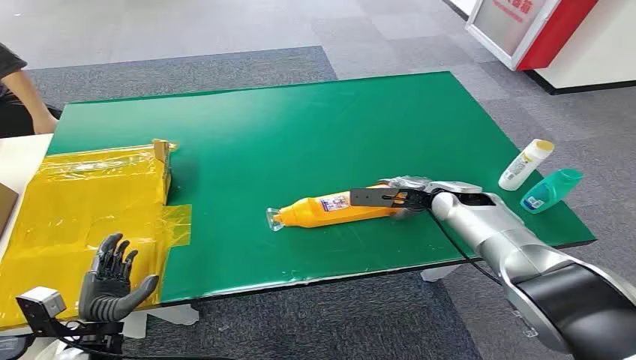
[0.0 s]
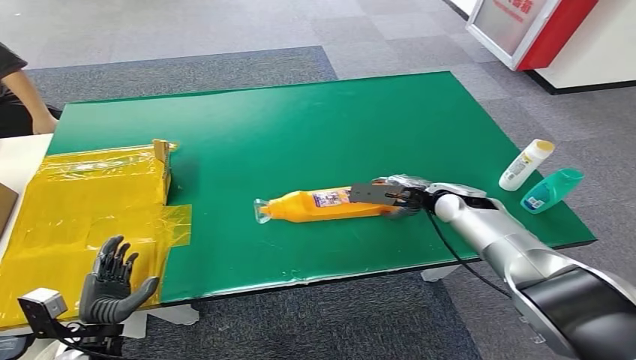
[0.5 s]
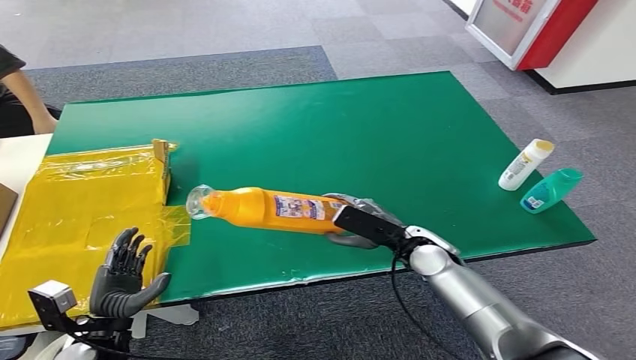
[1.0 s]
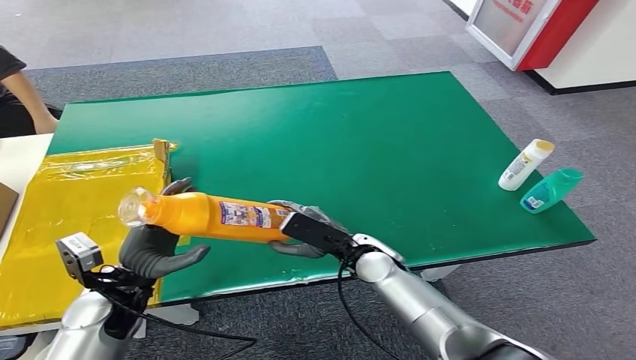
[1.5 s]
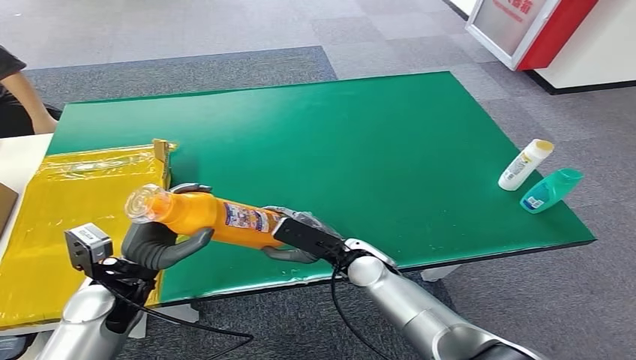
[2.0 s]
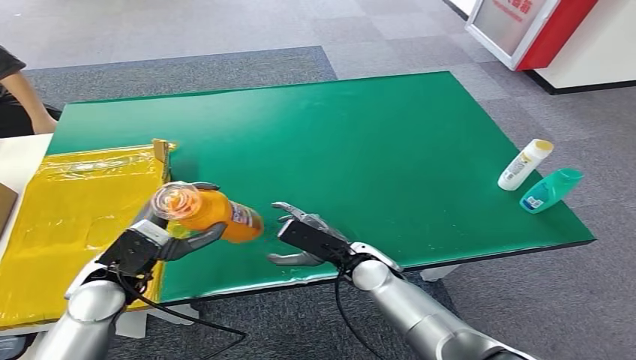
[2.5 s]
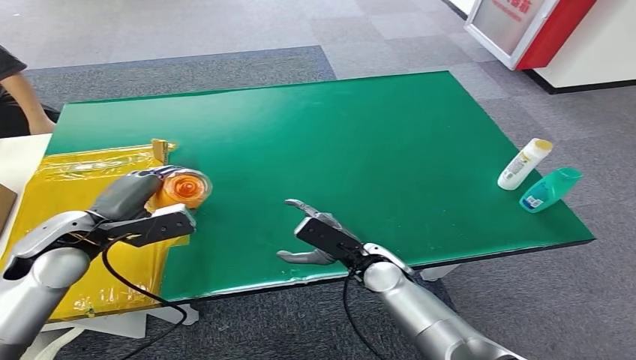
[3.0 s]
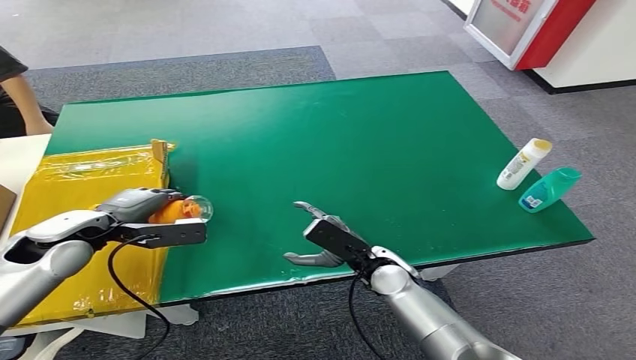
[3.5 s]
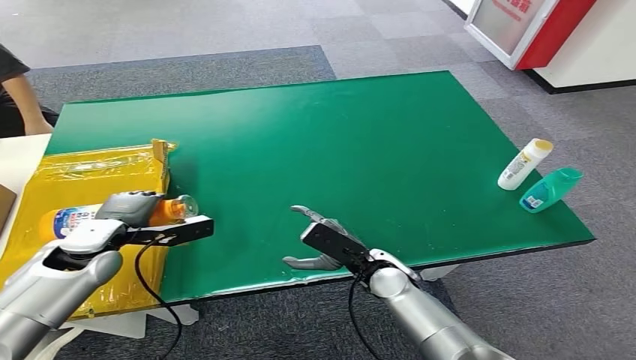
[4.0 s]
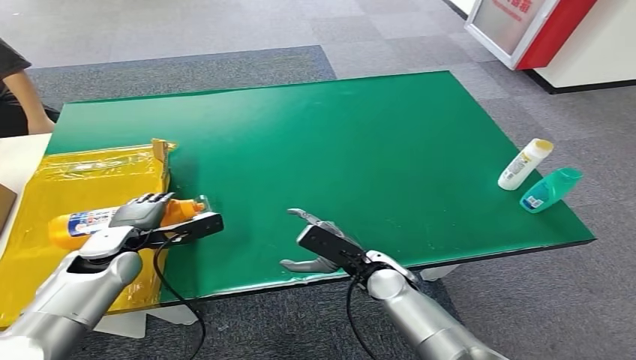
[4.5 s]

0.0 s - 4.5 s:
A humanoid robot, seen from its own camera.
Step, 0.0 s - 1.0 s: Pick up the bottle from the table.
Step, 1.5 s - 4.5 s: Turn the bottle to the front side.
2.0 s - 4.5 s: The left hand goes roughly 10 cm forward, and travels upward and back again, some 10 cm each way.

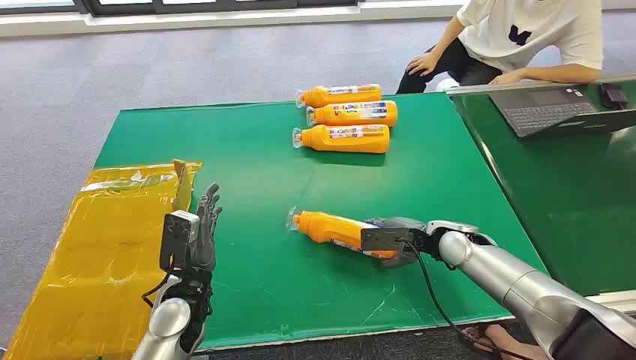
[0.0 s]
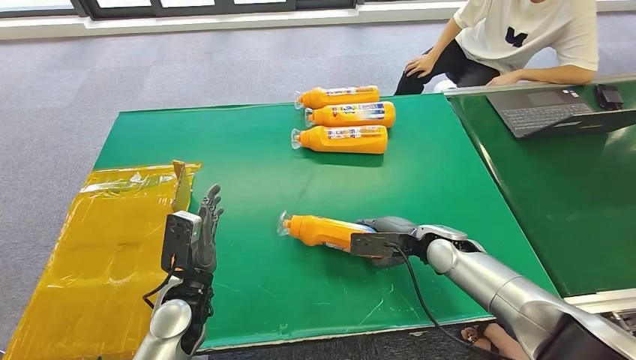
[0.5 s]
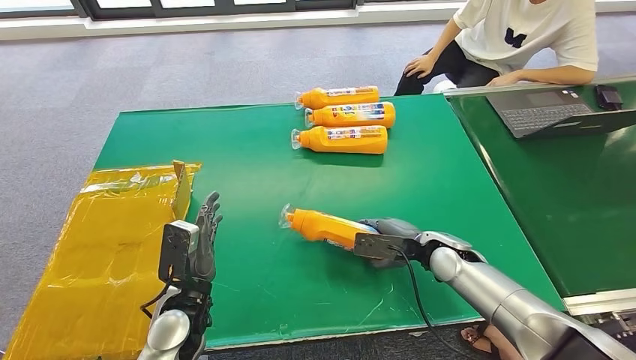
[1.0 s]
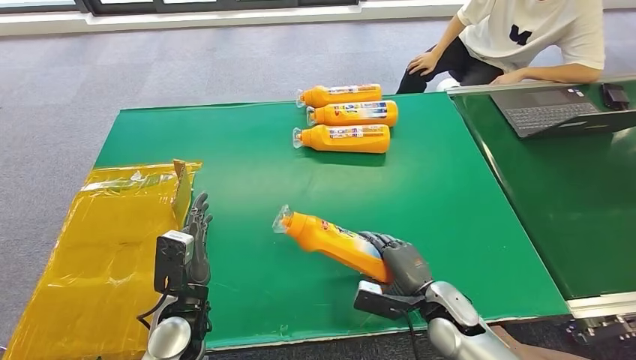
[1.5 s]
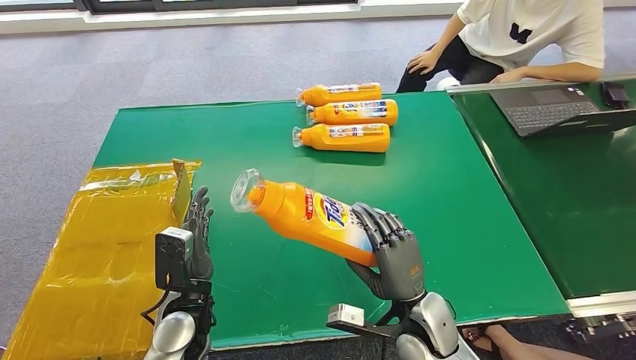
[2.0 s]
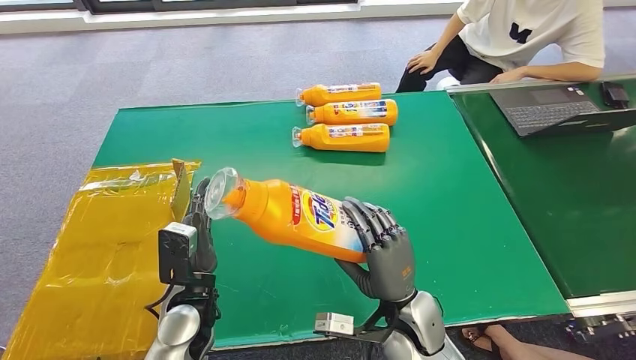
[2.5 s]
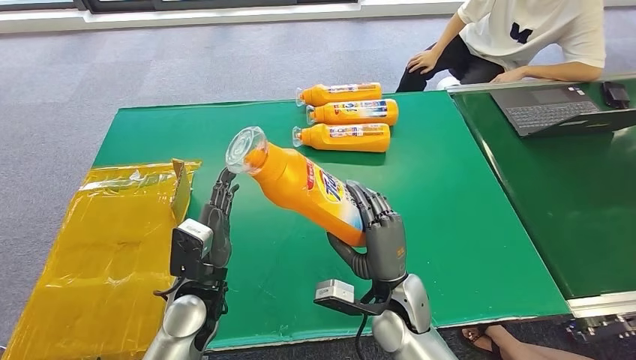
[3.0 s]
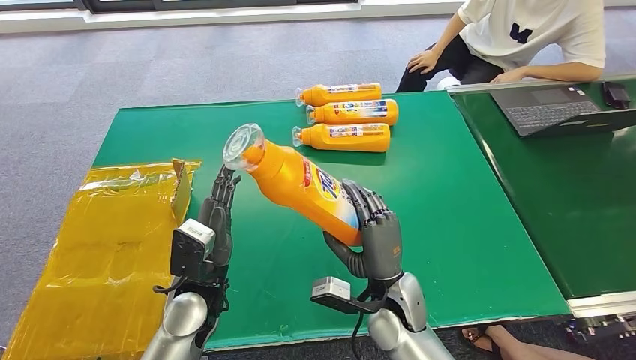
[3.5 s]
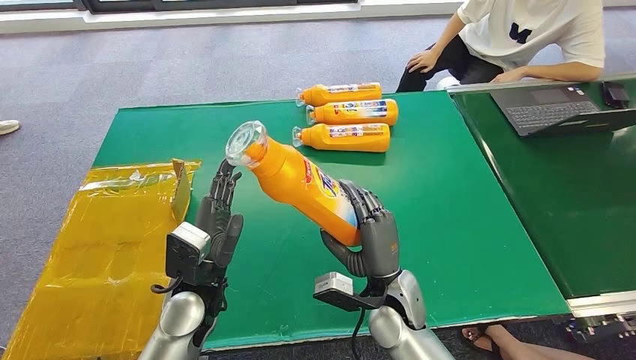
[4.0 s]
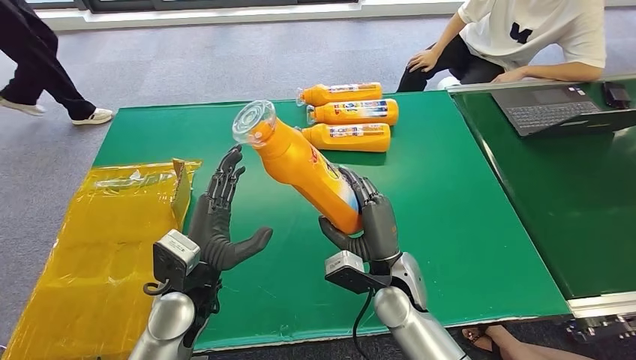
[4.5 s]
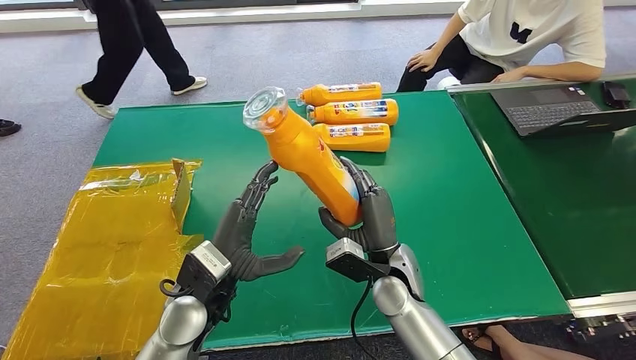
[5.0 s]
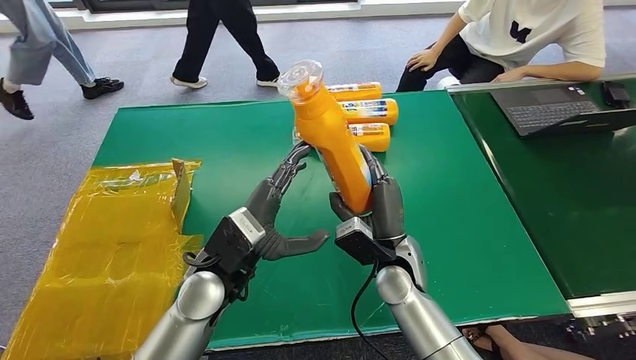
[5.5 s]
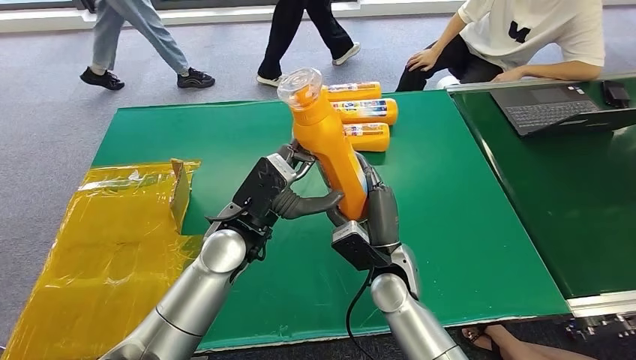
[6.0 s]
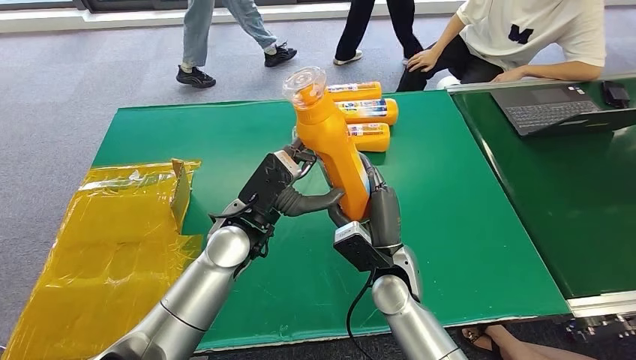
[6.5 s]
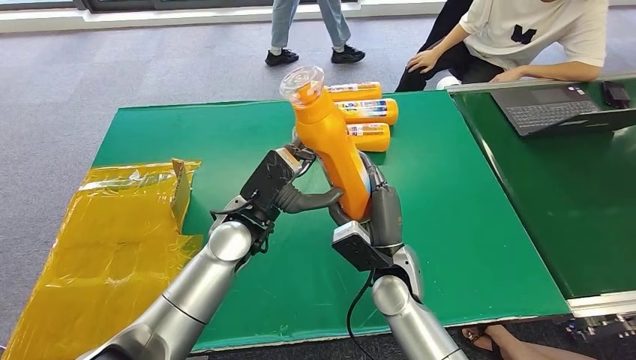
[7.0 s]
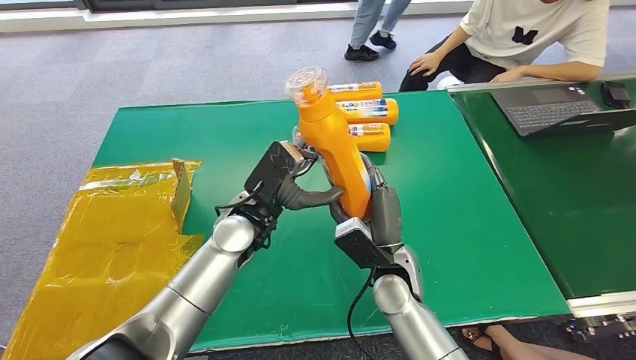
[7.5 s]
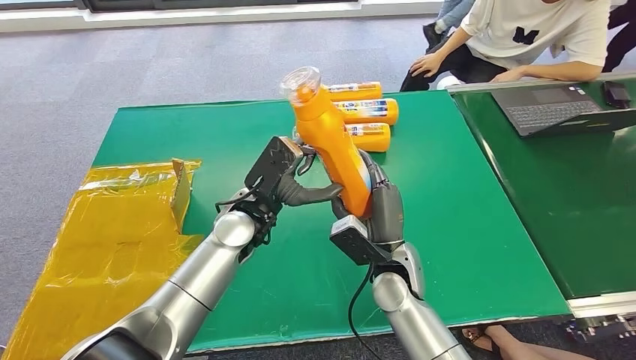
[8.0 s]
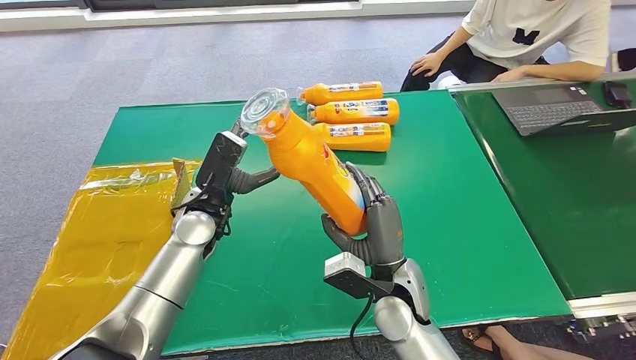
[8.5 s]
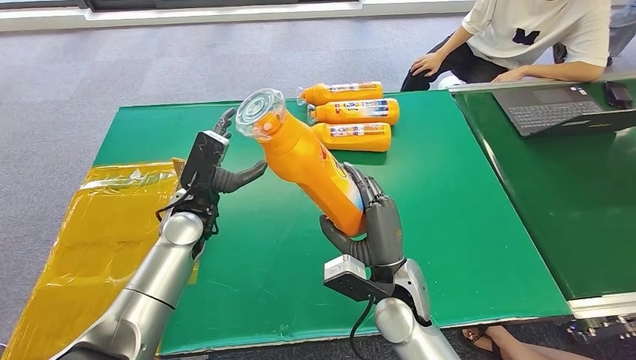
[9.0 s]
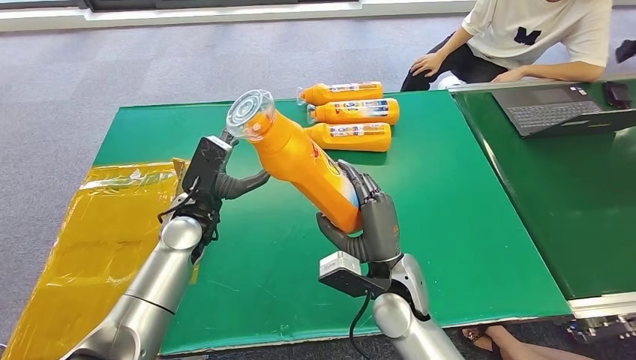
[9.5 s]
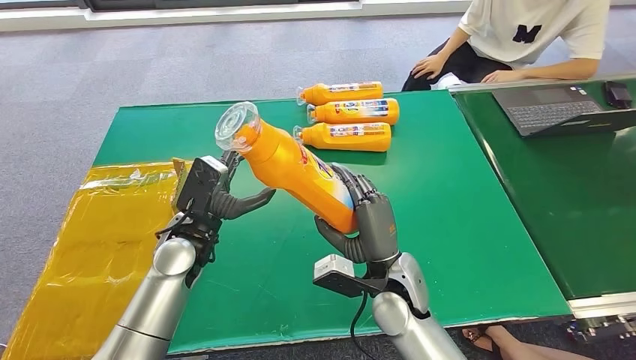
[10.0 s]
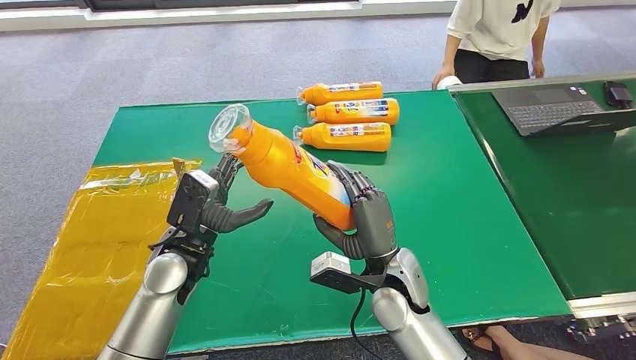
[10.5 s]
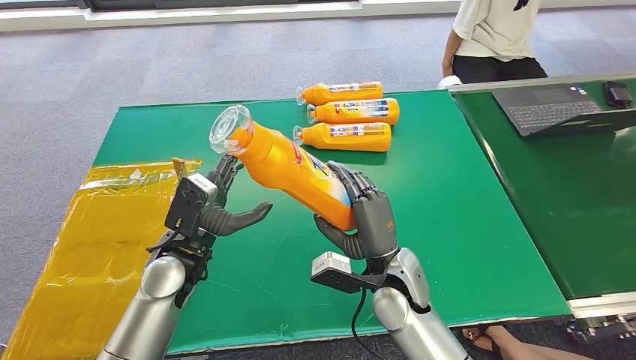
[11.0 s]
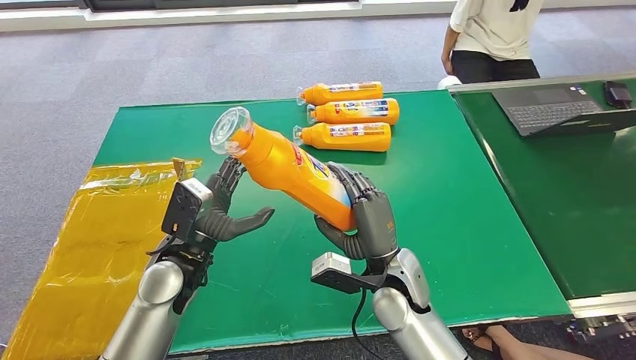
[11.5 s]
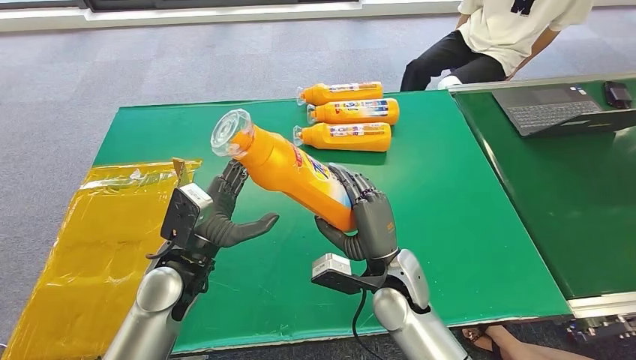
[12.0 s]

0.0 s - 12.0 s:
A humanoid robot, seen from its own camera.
Step, 0.0 s - 1.5 s: Pick up the bottle from the table.
2.0 s - 4.0 s: The right hand shifts by approximately 5 cm. The left hand heads upward, covering some 5 cm.
8.0 s - 10.0 s: The left hand moves to the left, about 10 cm.
10.0 s - 12.0 s: The hands stay close to where they were, moving slightly.

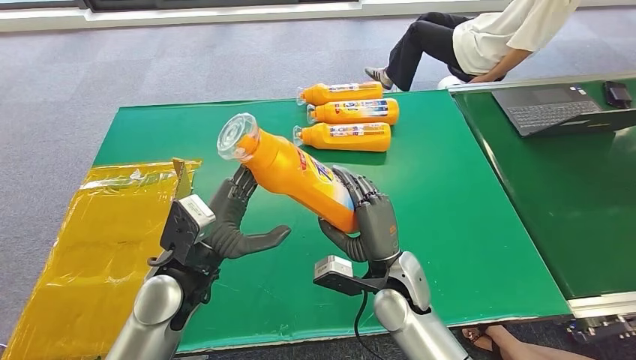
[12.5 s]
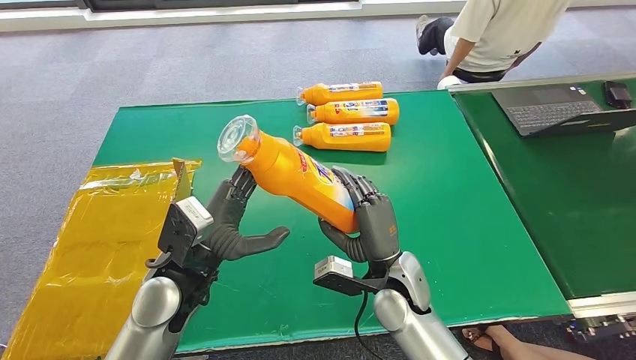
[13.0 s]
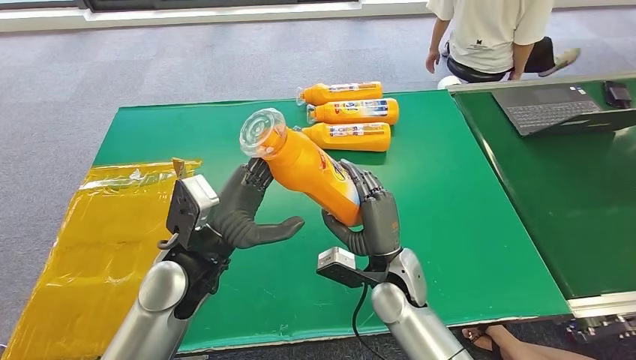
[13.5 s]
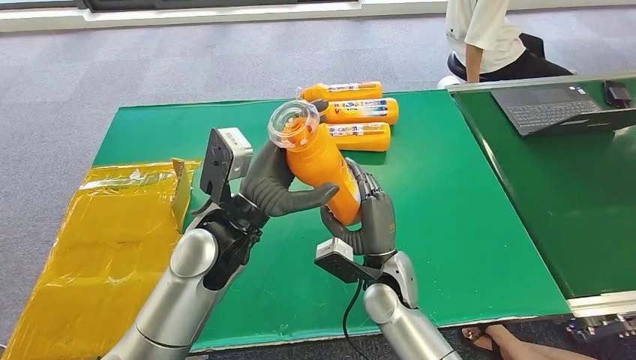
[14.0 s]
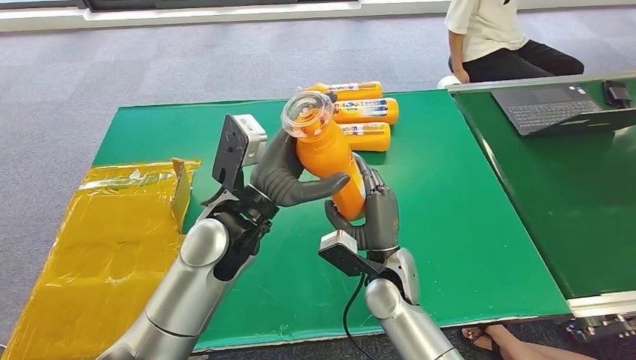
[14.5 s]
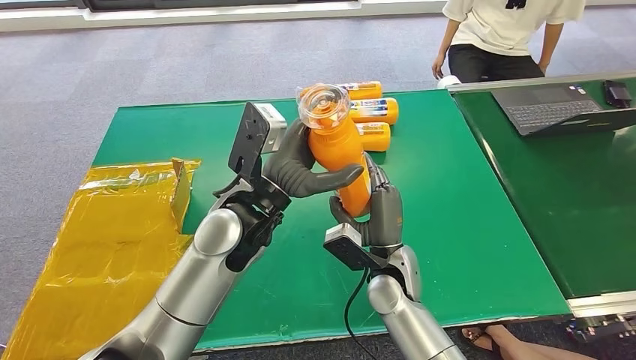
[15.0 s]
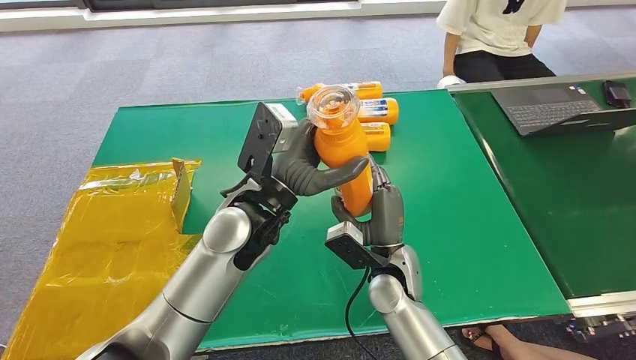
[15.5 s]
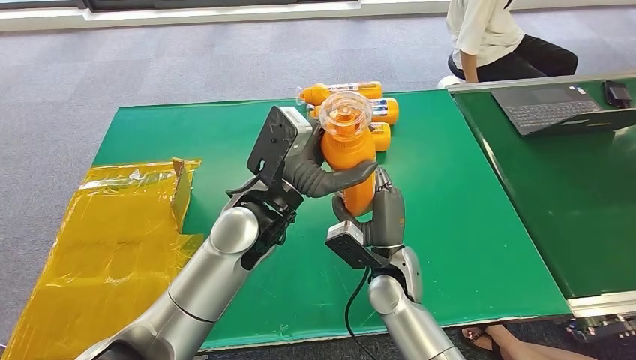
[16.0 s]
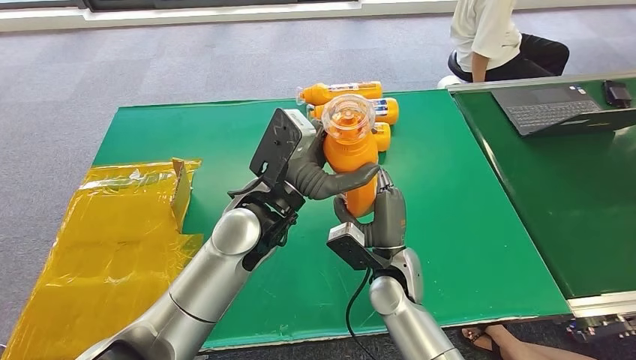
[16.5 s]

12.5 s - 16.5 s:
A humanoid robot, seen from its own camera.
12.5 s - 14.5 s: The left hand is displaced to the right and upward by about 10 cm.
14.5 s - 16.5 s: The hands stay close to where they were, moving slightly.
